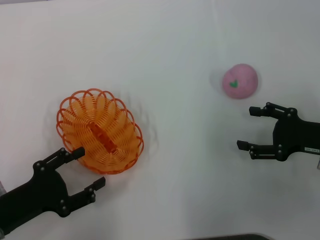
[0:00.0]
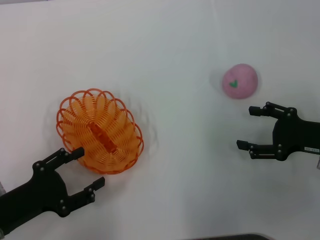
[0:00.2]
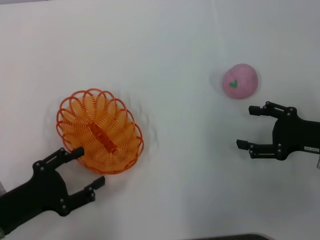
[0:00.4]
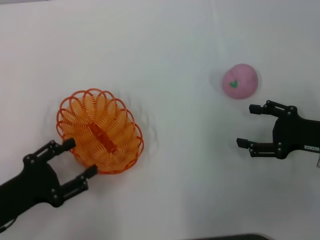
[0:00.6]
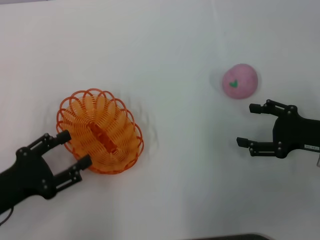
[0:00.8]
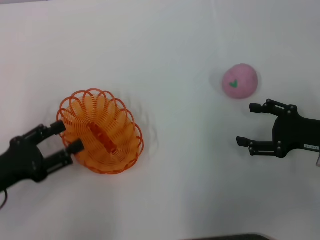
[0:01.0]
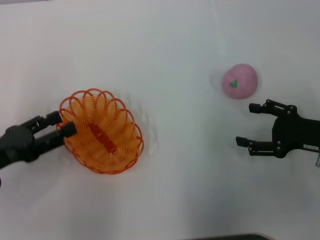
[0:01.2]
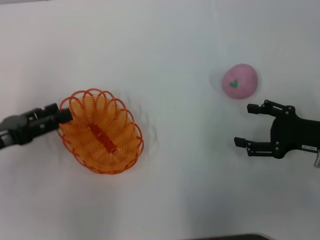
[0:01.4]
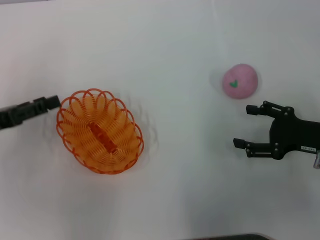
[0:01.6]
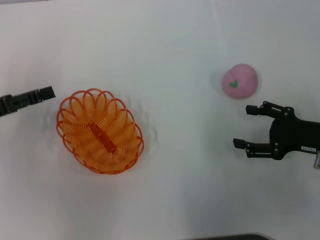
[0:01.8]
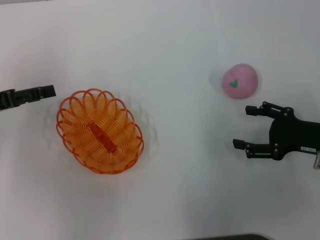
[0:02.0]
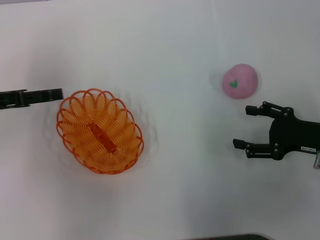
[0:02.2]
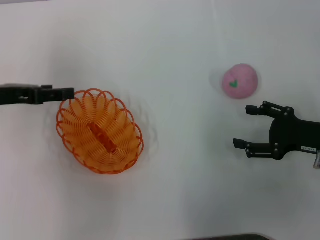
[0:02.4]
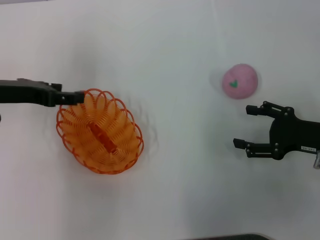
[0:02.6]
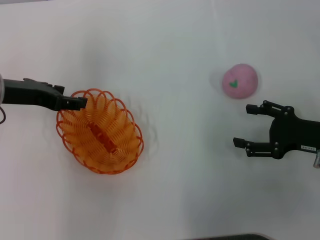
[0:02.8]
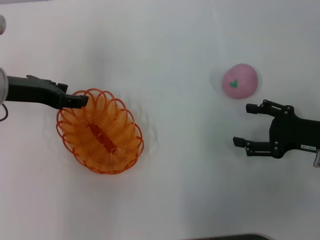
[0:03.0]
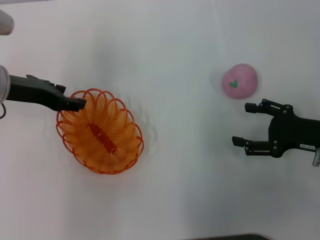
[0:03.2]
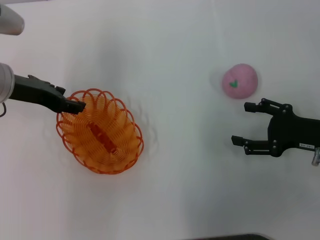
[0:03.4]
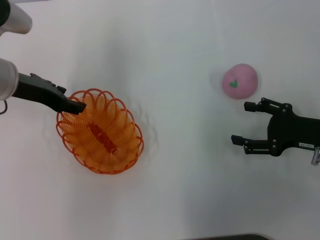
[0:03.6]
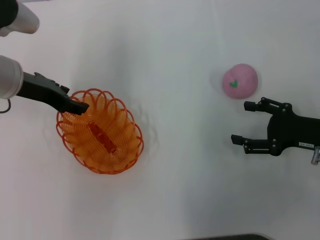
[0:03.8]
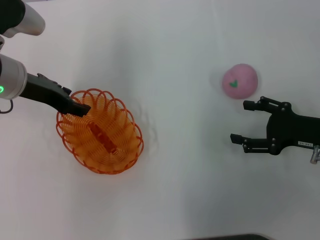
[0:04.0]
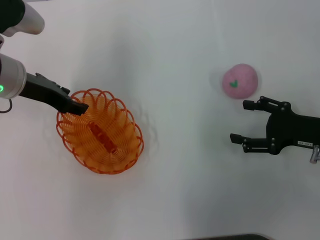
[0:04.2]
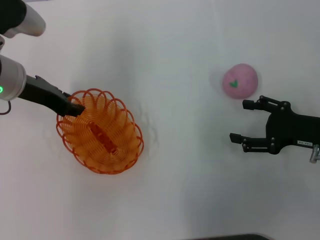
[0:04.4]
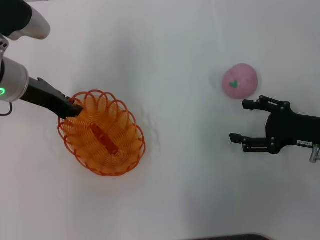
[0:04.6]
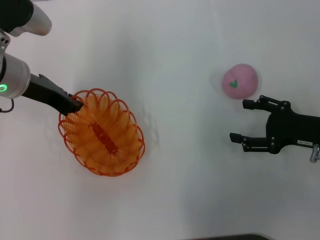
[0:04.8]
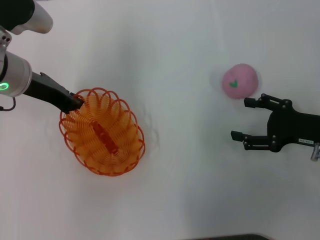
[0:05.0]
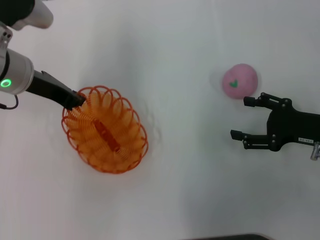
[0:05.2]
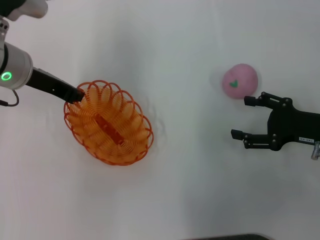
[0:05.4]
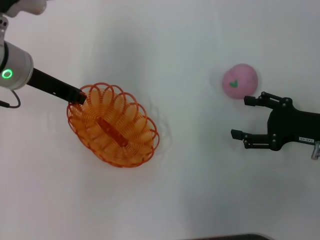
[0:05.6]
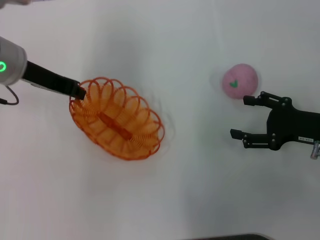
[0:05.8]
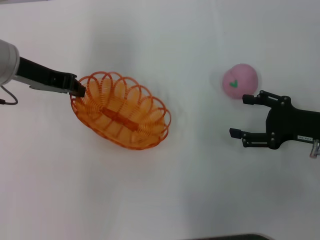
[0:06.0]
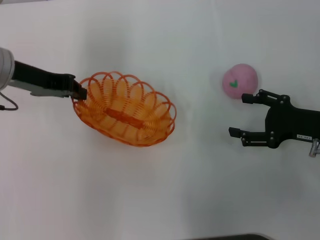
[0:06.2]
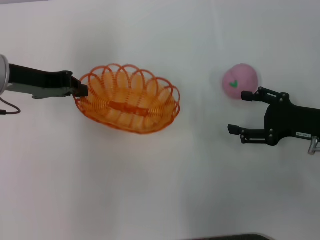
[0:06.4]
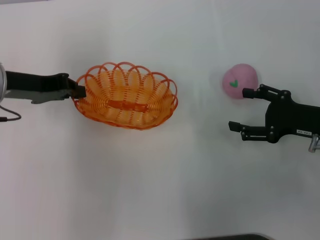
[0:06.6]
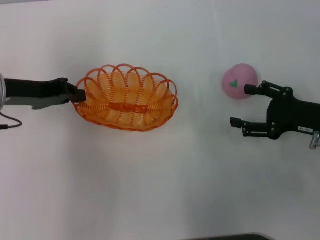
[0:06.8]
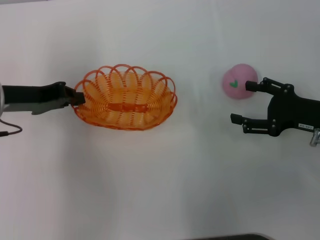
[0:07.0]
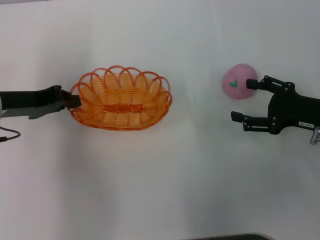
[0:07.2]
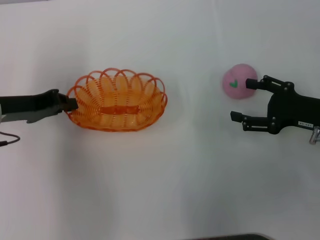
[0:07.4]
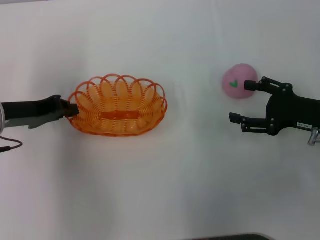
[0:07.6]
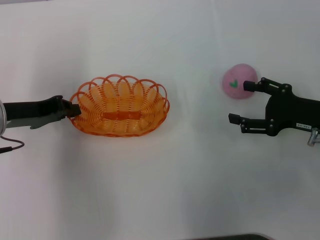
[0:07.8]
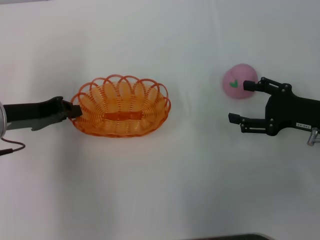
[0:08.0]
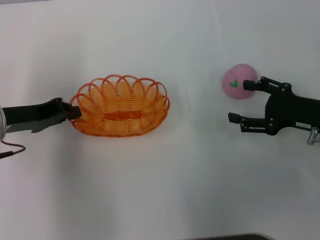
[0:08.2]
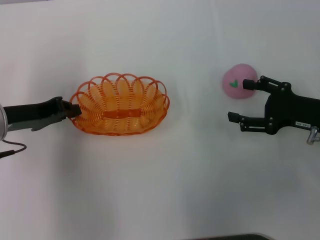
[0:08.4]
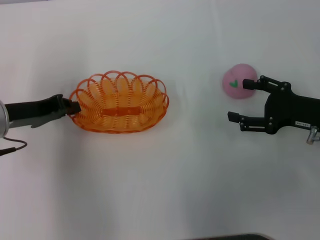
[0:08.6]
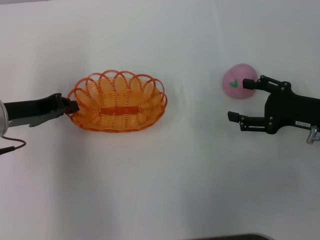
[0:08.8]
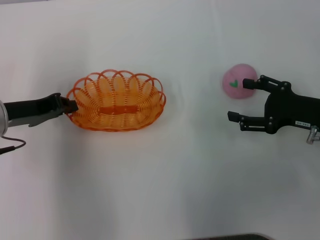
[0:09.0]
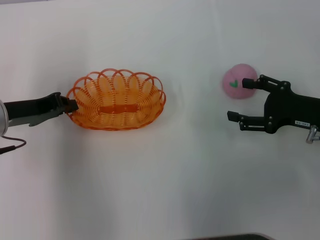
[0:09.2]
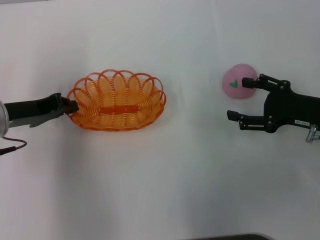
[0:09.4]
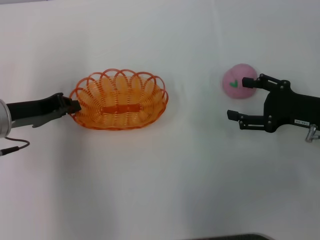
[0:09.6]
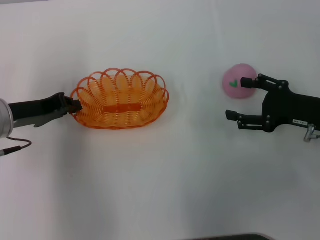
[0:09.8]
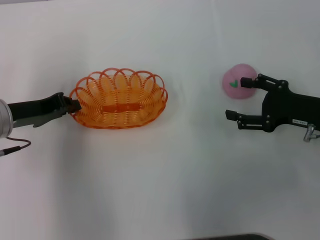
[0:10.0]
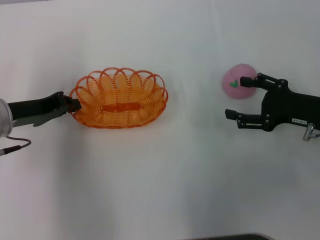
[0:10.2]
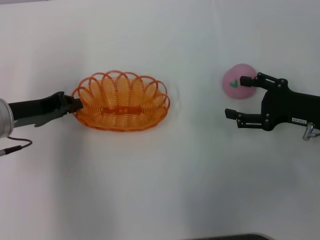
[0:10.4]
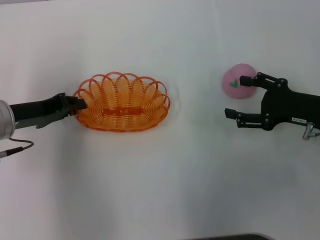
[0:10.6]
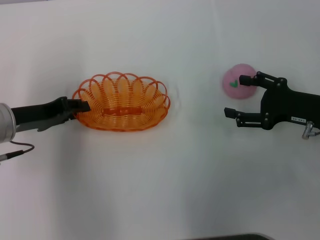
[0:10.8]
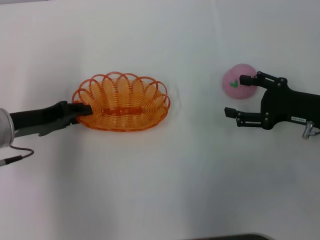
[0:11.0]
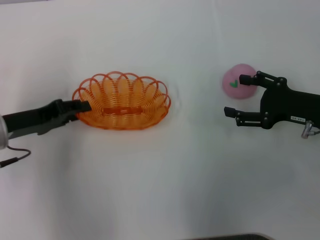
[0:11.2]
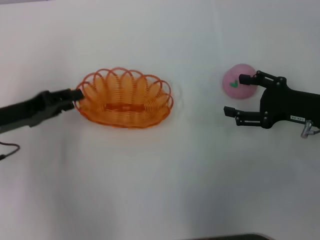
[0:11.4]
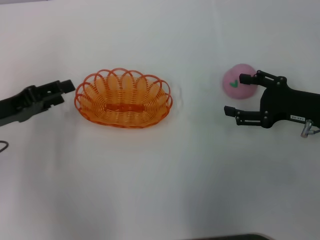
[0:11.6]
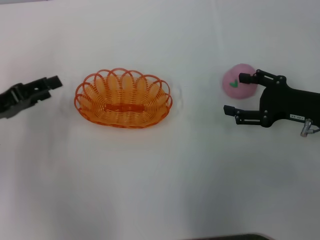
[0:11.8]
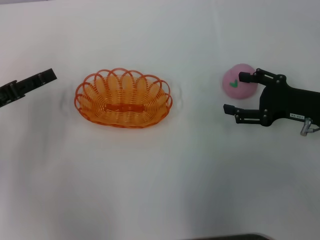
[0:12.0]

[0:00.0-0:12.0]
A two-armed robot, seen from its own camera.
Step, 0:00.0 to 0:06.2: Pick up the basket with the left gripper.
0:00.0 to 0:01.6: The left gripper heads forward and upward, covering approximately 10 cm.
0:01.6 to 0:03.0: The left gripper moves forward and to the right, approximately 10 cm.
0:03.0 to 0:04.4: The grippers make only small movements.
0:04.4 to 0:06.0: The left gripper closes its fingers.
0:06.0 to 0:07.6: The left gripper shifts some 10 cm downward and backward.
0:07.6 to 0:09.0: Both grippers stay about where they are.
0:09.0 to 0:10.4: Both grippers stay put.
0:10.4 to 0:12.0: The left gripper heads to the left, covering roughly 5 cm, and opens its fingers.

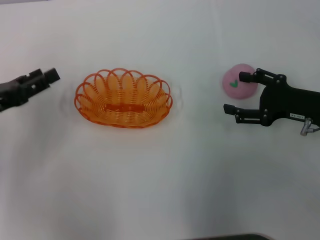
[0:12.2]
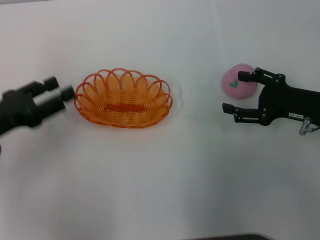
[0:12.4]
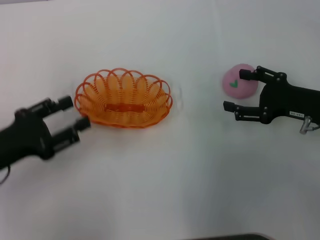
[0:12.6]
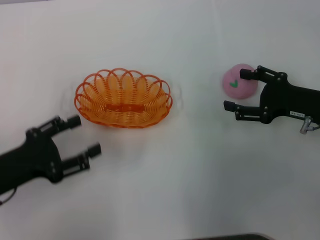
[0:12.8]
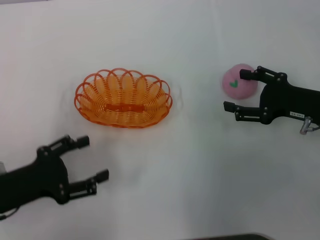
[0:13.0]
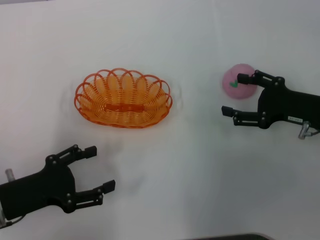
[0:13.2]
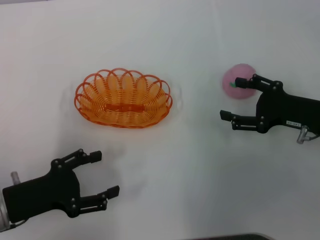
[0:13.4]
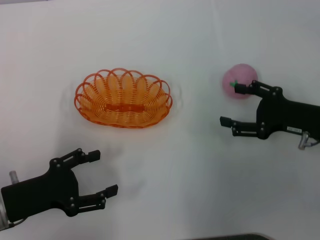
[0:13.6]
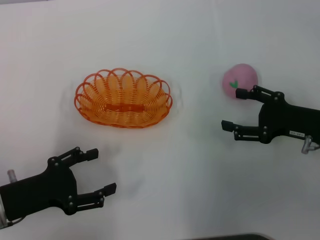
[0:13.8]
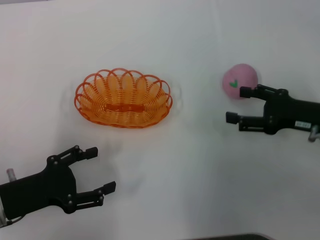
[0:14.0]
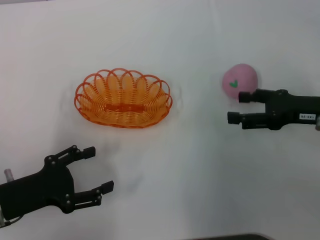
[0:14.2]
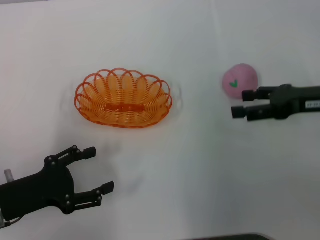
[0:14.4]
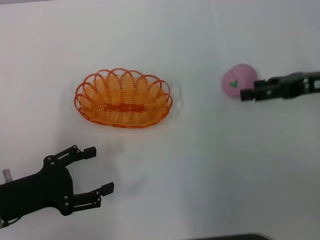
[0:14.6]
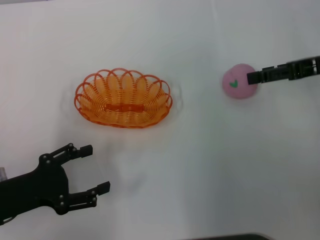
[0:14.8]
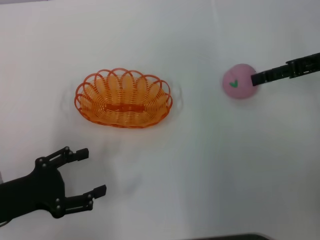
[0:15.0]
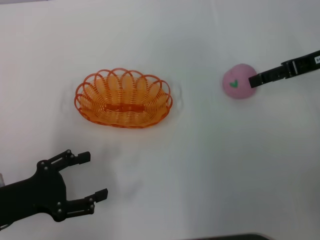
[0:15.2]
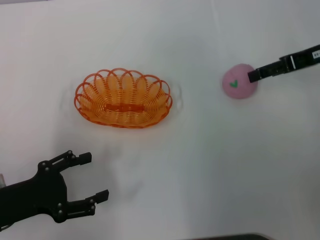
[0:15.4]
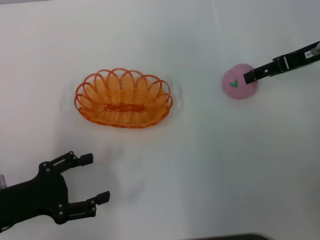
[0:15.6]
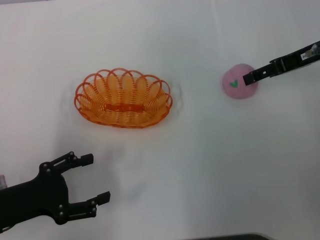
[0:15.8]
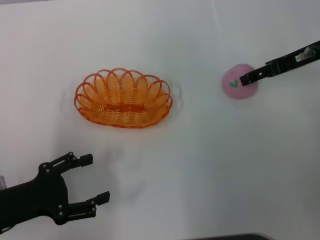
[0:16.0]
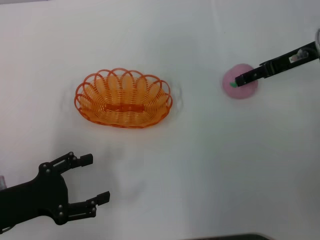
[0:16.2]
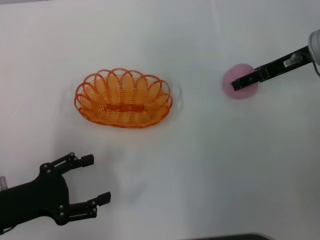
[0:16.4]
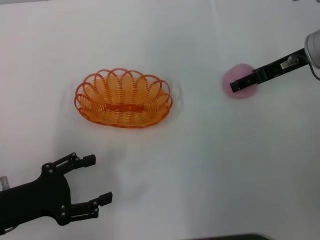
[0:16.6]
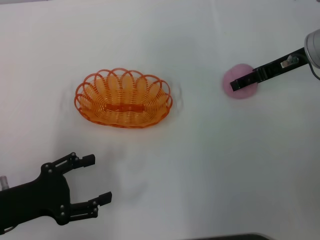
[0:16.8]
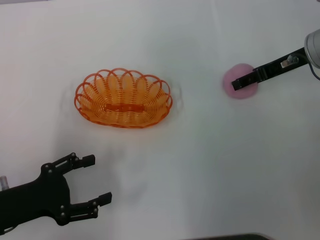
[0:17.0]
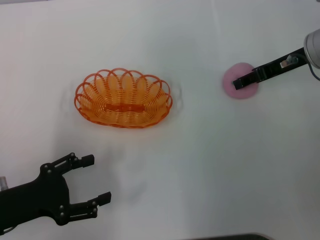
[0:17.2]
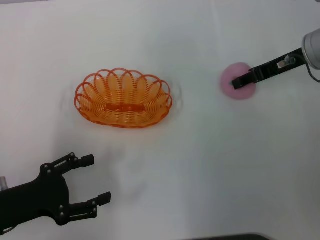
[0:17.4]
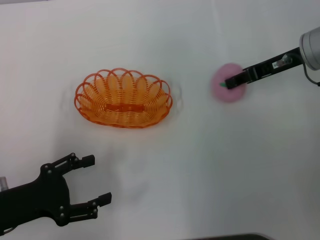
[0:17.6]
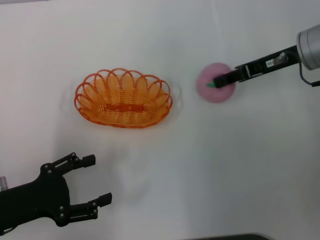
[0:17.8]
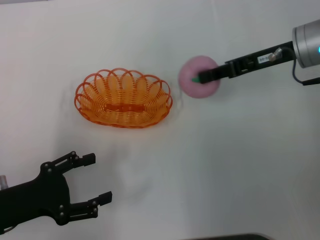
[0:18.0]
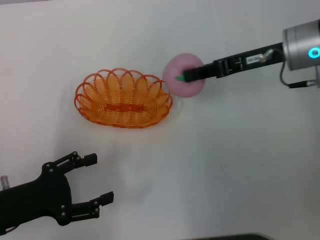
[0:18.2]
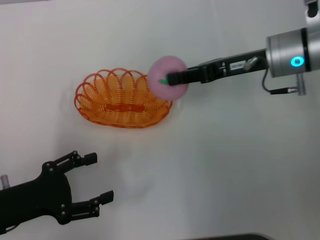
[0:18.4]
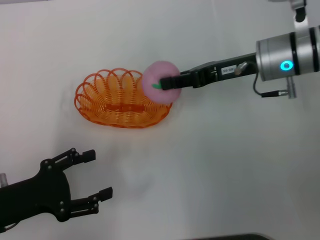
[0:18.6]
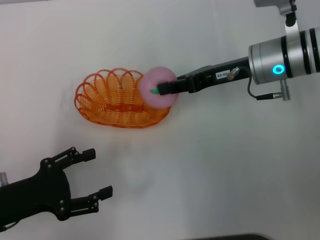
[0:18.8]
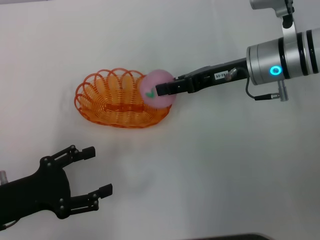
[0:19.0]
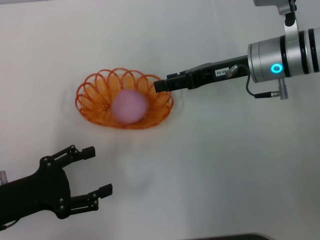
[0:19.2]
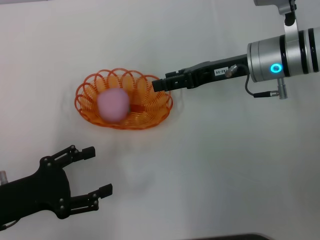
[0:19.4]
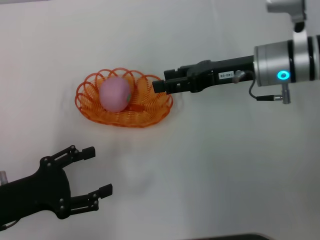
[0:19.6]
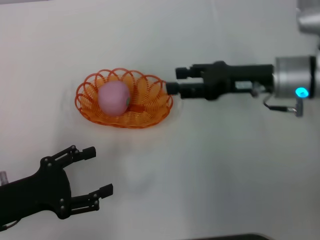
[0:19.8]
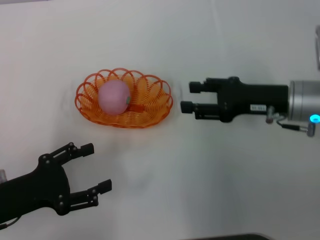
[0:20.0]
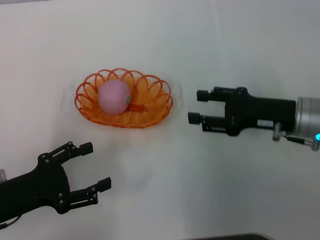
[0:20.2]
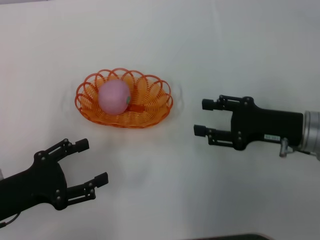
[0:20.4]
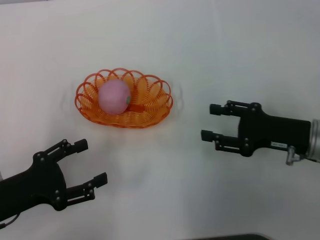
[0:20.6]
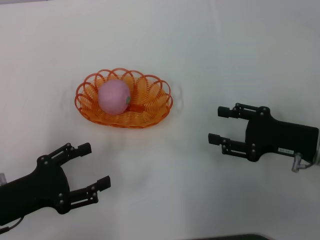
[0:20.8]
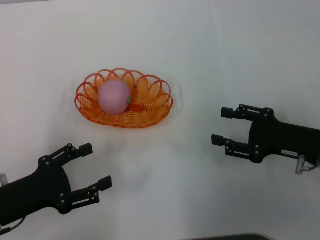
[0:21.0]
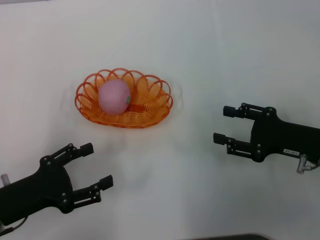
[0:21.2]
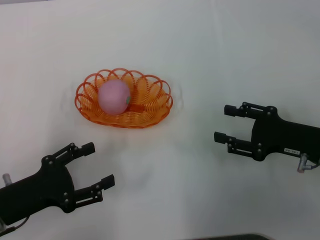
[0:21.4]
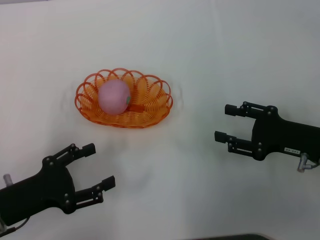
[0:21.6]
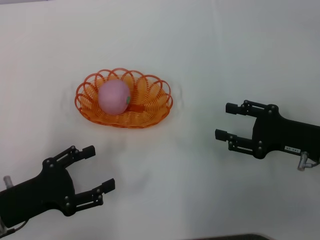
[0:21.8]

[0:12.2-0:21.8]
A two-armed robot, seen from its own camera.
Step, 0:13.4 to 0:17.8: Pick up the peach with the right gripper.
Step, 0:18.0 to 0:20.0: Place the peach into the basket with the right gripper.
0:12.2 to 0:13.8: The left gripper is displaced backward and downward by approximately 10 cm.
0:13.8 to 0:15.4: The right gripper travels upward and forward by some 15 cm.
0:15.4 to 0:17.0: The right gripper shifts by roughly 5 cm.
0:17.0 to 0:18.6: The right gripper heads to the left, covering roughly 5 cm, and closes up.
0:18.6 to 0:20.2: The right gripper shifts some 10 cm backward, downward and to the right, and opens up.
0:20.2 to 0:21.8: The right gripper moves some 5 cm.
